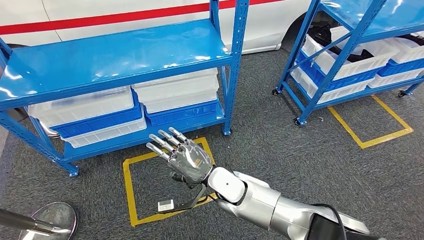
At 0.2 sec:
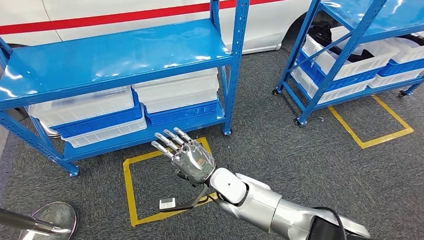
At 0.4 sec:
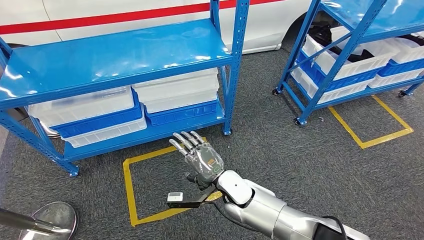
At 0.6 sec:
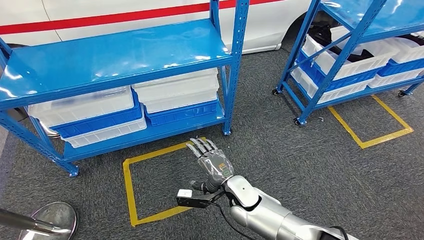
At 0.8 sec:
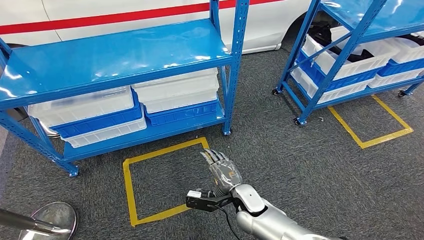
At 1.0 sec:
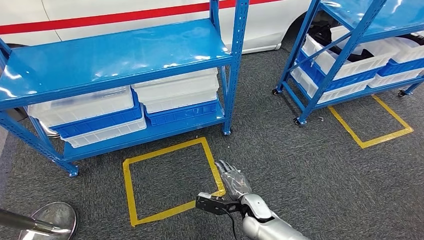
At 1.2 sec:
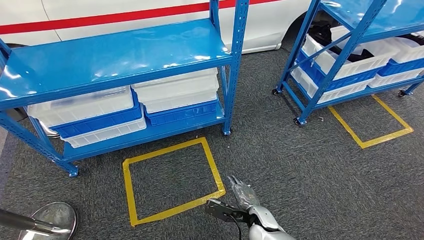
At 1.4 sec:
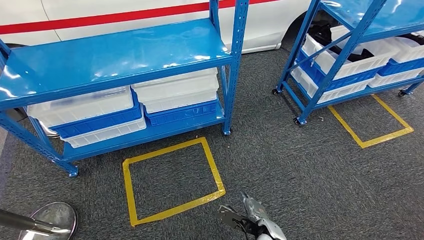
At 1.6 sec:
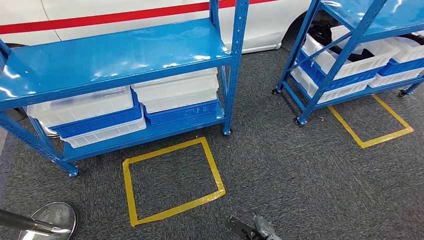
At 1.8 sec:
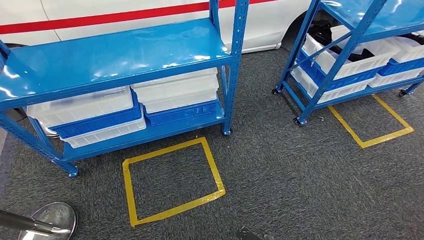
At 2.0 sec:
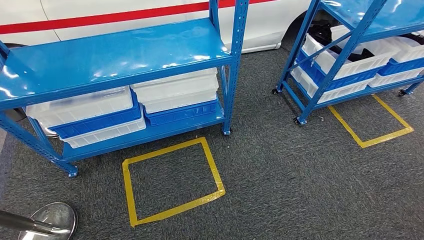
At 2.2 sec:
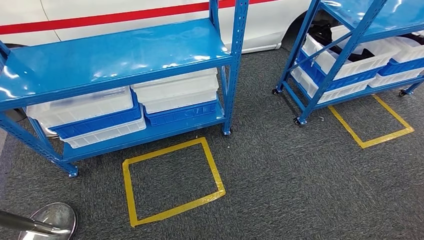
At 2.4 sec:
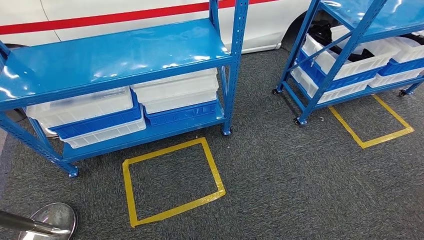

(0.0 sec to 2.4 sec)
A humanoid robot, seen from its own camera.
Step, 0.0 sec - 2.4 sec: Move to the initial position of the shelf.
0.0 sec - 1.2 sec: The right hand moves downward, backward and to the right, roughly 20 cm. The left hand moves to the left, roughly 5 cm.
1.2 sec - 2.4 sec: The right hand moves backward and downward, roughly 25 cm.
